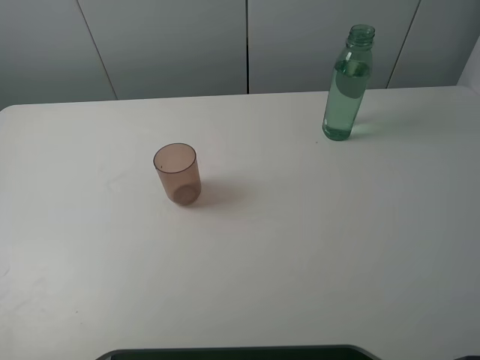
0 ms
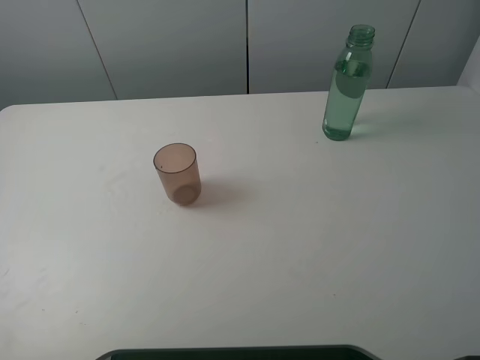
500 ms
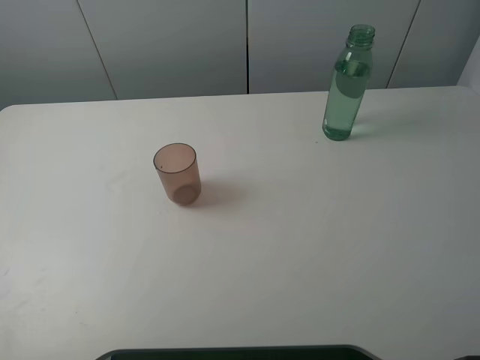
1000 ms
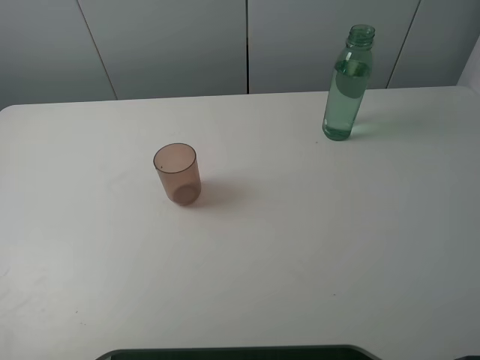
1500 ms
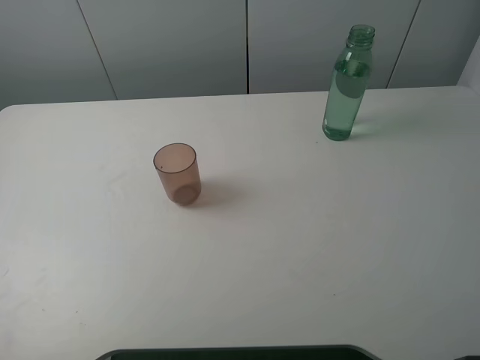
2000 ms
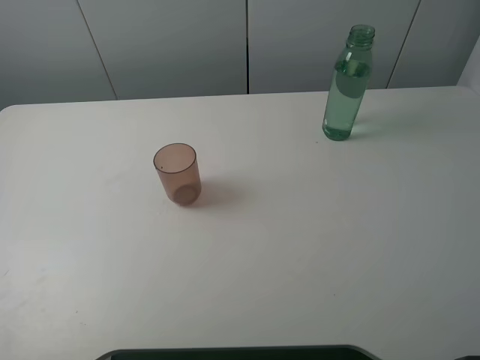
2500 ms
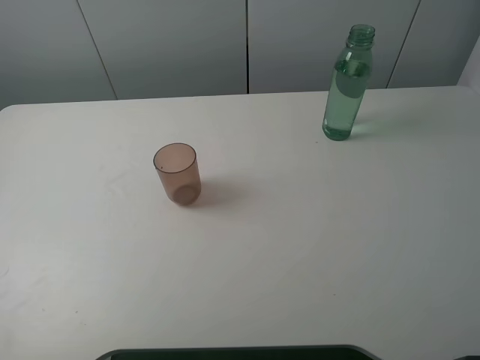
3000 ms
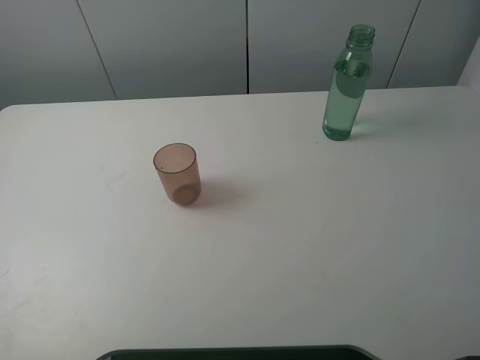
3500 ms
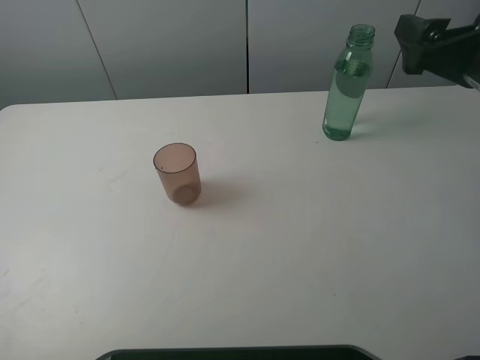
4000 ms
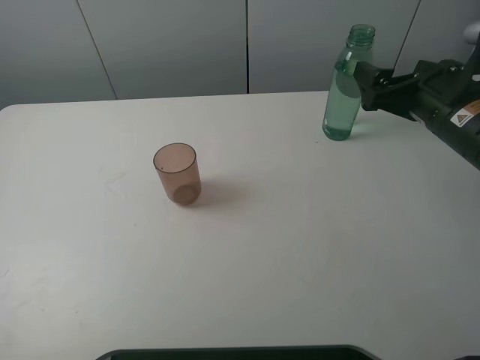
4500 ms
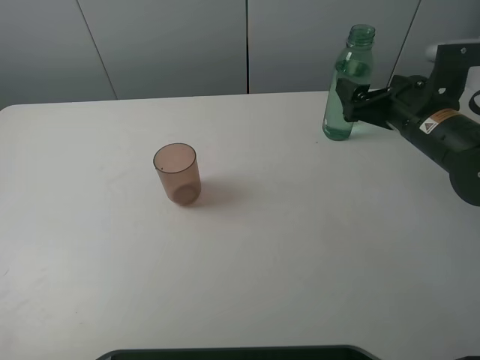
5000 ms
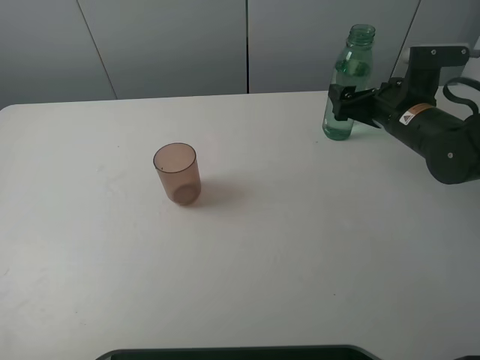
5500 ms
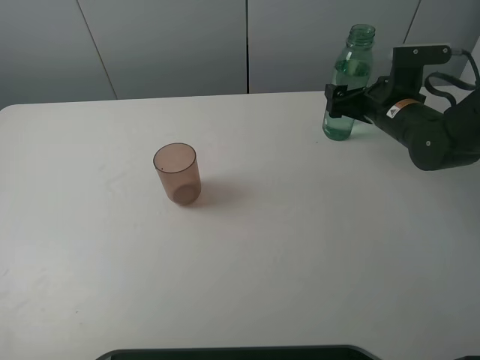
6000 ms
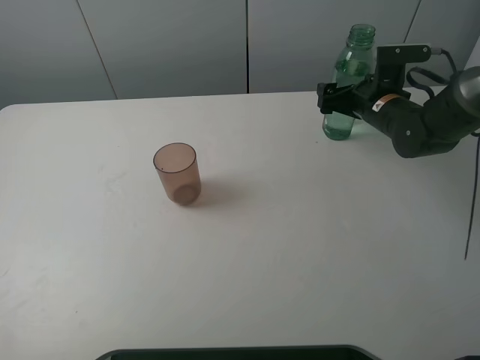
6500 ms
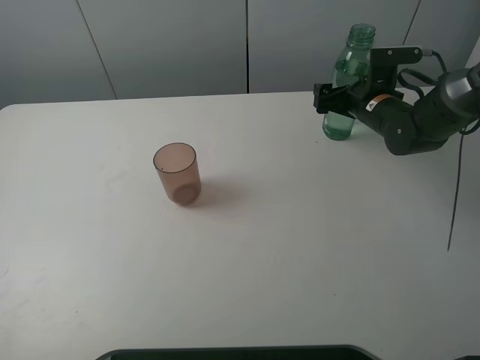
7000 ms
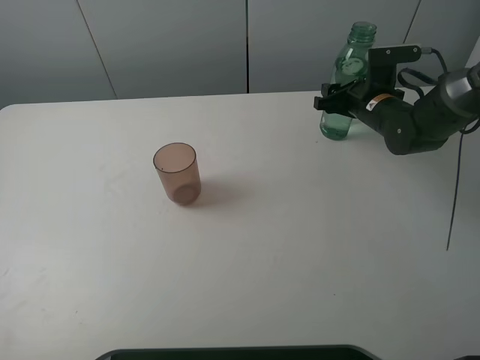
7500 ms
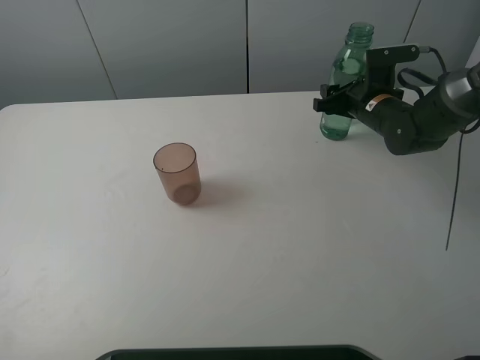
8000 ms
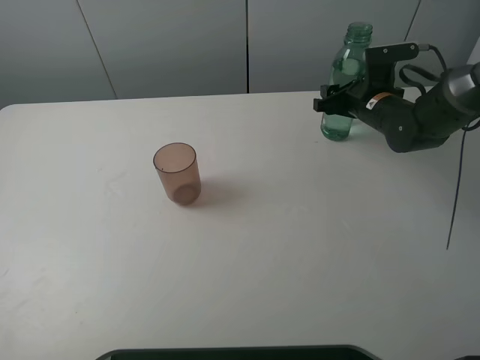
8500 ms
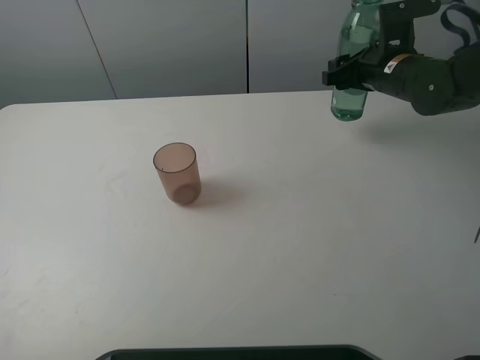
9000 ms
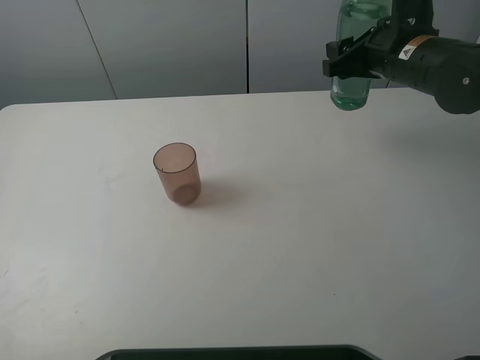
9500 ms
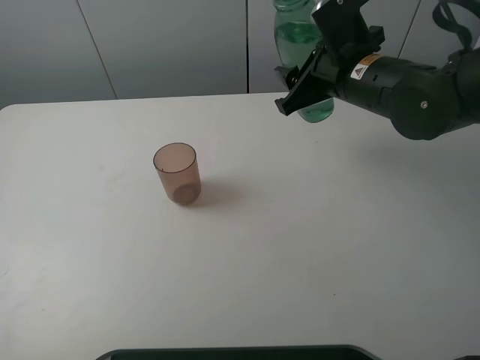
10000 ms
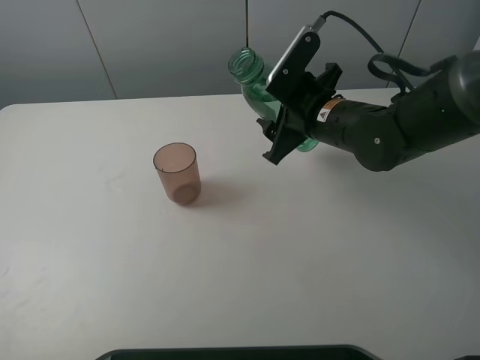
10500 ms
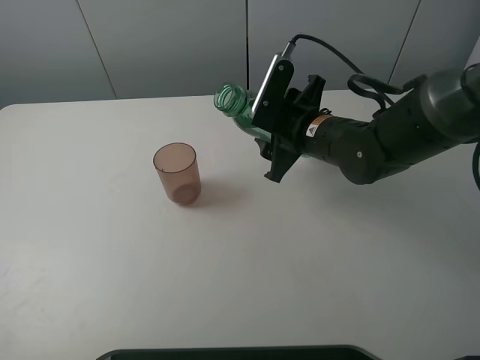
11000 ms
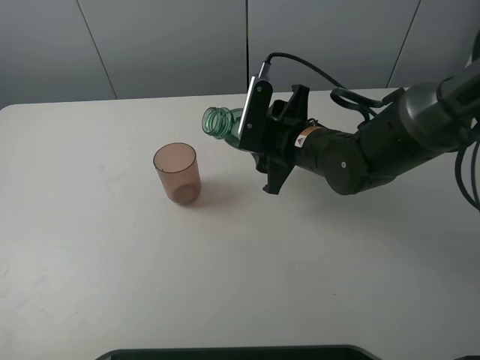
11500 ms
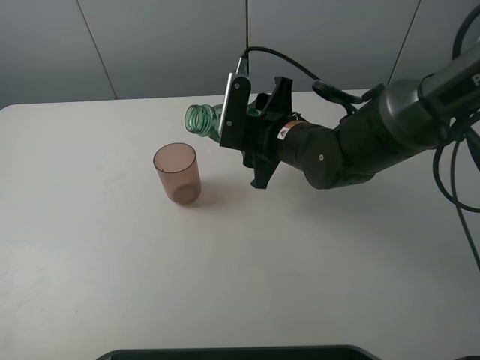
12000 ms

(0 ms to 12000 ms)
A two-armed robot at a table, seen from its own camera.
Task of the whole recording: pick up the bottle filled with water and pour it into the pink cup.
Step, 0 ms - 7500 ms: Grasp the green bottle with the right gripper.
0 ms - 2000 ms: Neither gripper changes place.
2000 ms - 4000 ms: The right gripper heads forward, covering some 25 cm.
4000 ms - 6000 ms: The right gripper heads downward and forward, covering some 15 cm.
6000 ms - 8000 ms: The right gripper moves roughly 5 cm, and closes.
8000 ms - 10000 ms: The right gripper travels upward, backward and to the left by roughly 15 cm.
10000 ms - 12000 ms: The right gripper goes about 10 cm downward and to the left.

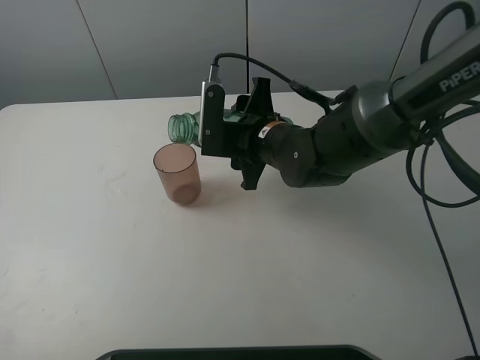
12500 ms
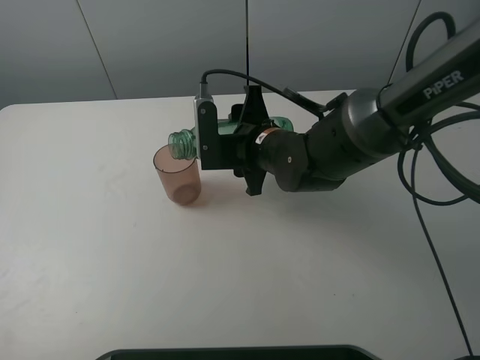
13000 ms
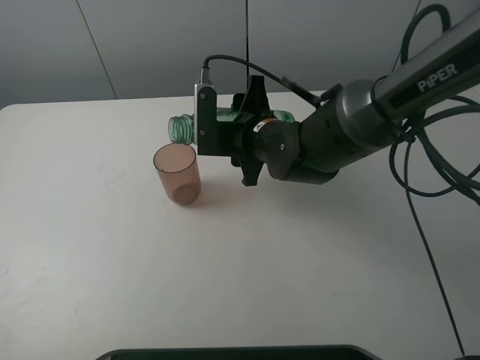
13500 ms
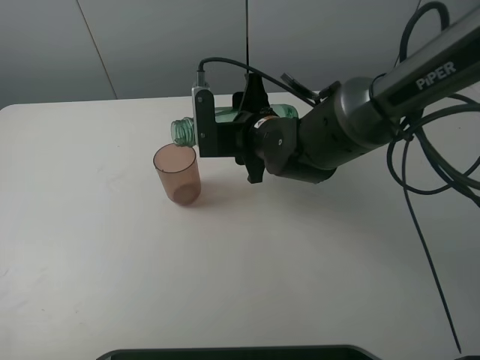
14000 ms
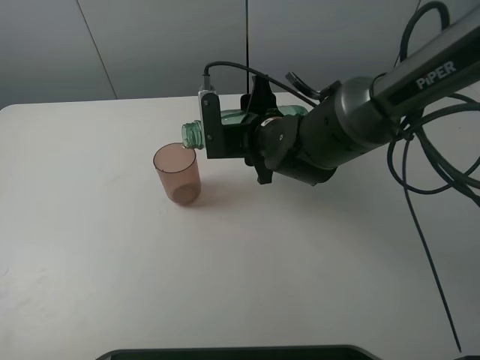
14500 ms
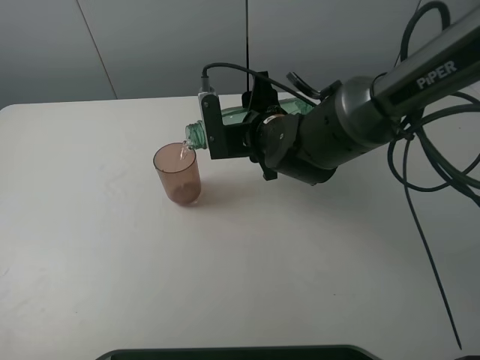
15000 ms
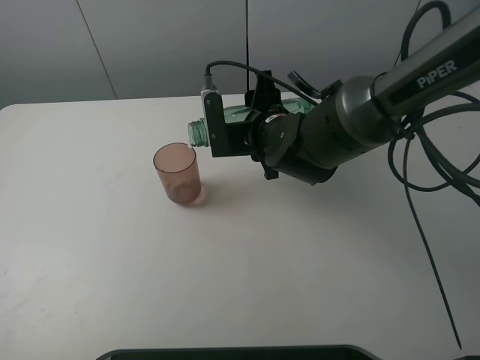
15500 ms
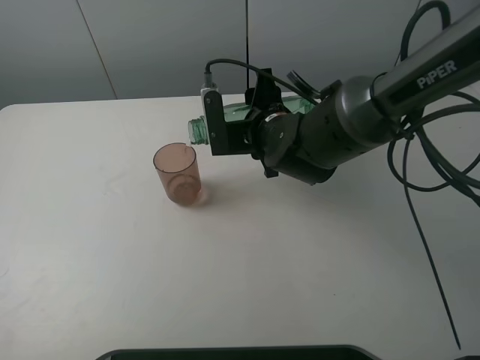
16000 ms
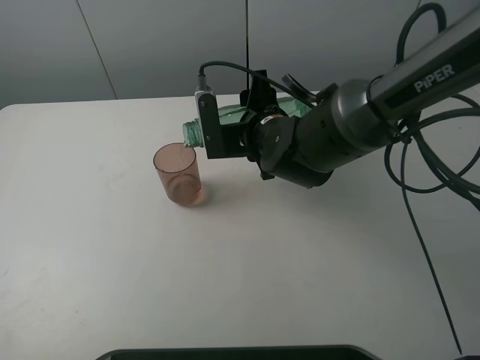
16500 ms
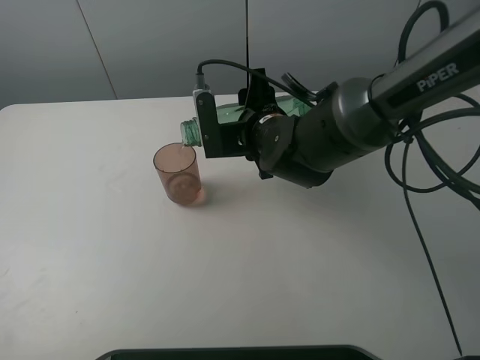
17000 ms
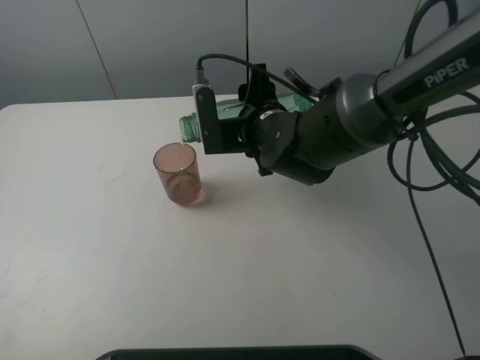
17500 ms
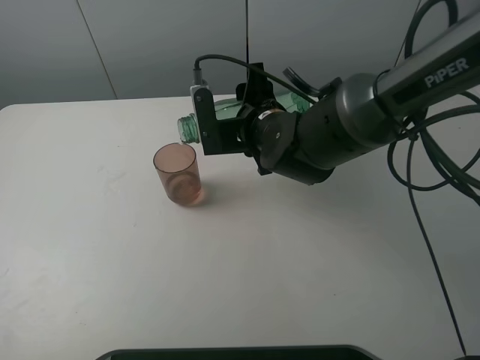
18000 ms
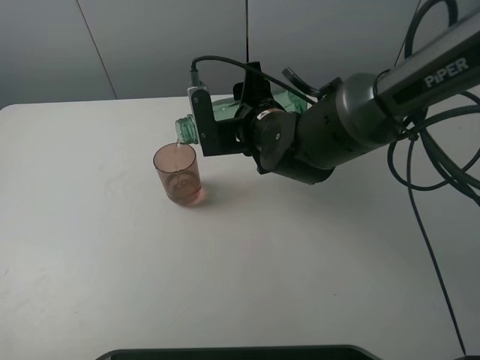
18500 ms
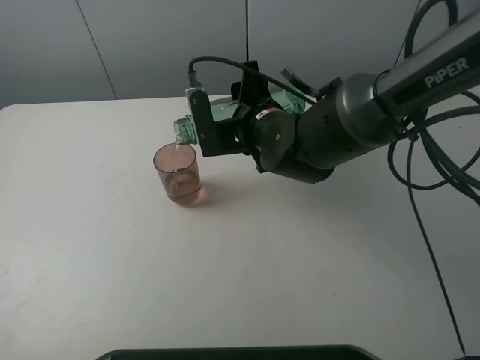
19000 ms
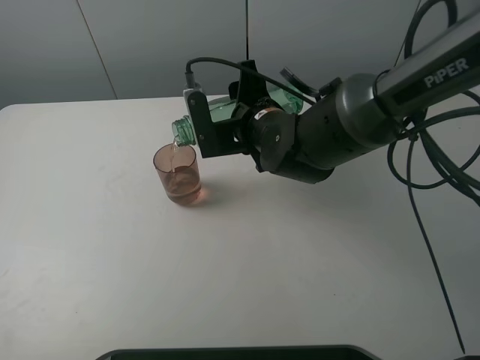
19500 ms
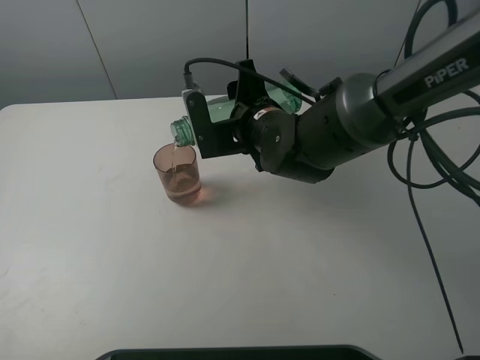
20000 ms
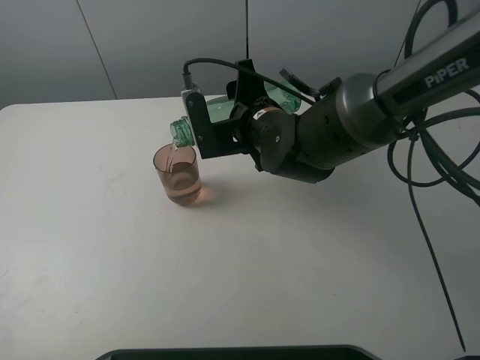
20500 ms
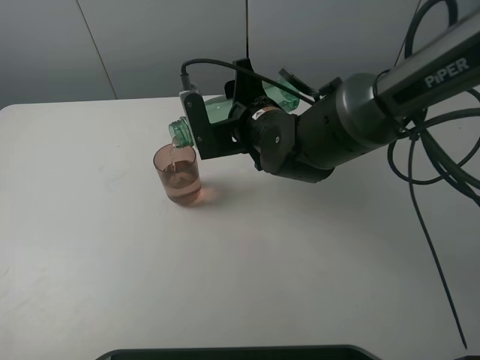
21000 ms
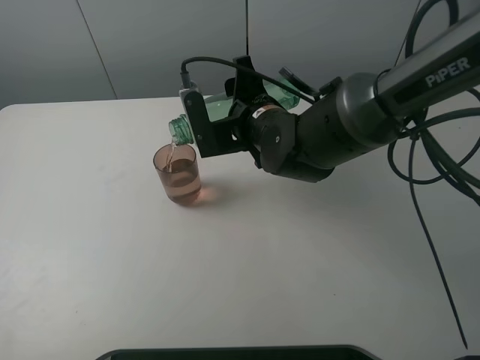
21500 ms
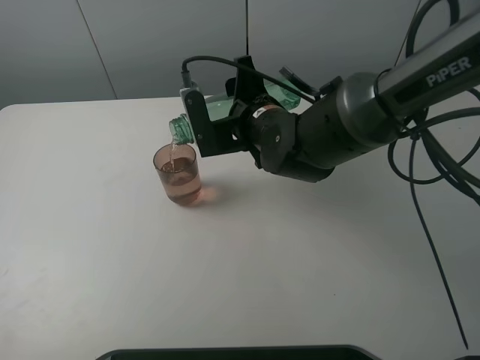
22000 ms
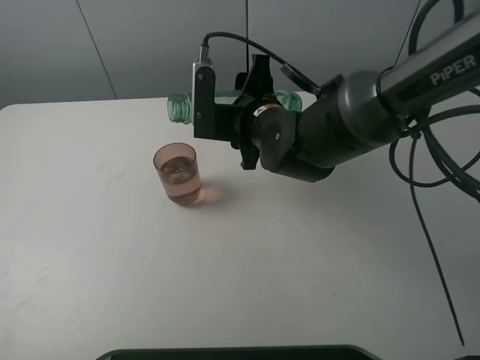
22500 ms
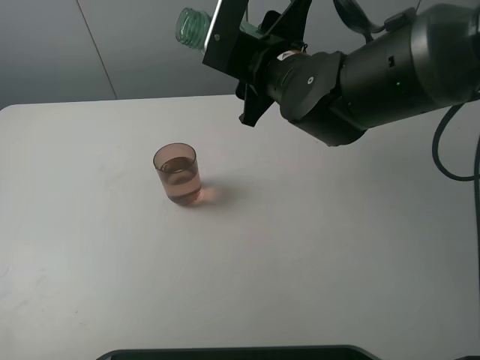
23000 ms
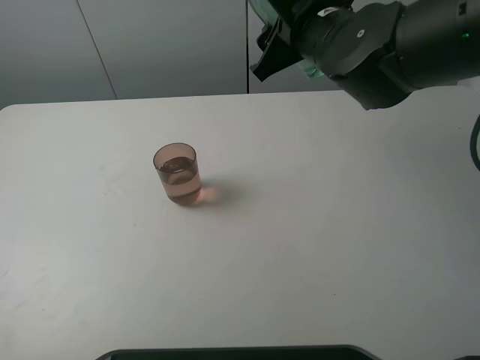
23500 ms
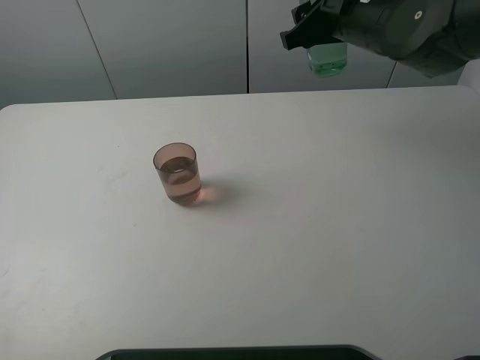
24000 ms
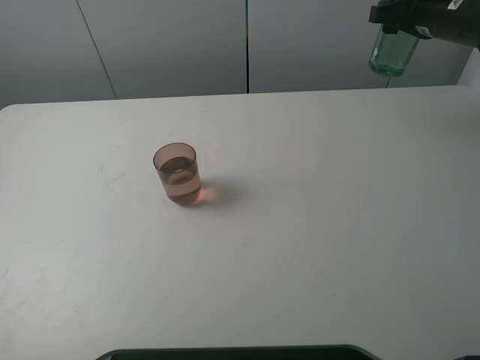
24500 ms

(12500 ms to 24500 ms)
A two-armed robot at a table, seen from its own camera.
Task of the whole recording: pick up the bottle filled with water and pour it into the pink cup.
Step, 12500 ms - 22500 ms: Pour water from green bottle to pink cup with the right gripper.
12500 ms - 14500 ms: The grippers move only a little.
14500 ms - 16500 ms: Both grippers stay put.
16500 ms - 18500 ms: Both grippers stay put.
18500 ms - 20500 ms: Neither gripper changes place.
20500 ms - 22500 ms: The grippers move only a little.
22500 ms - 24500 ms: The right gripper heads to the right, covering roughly 25 cm.

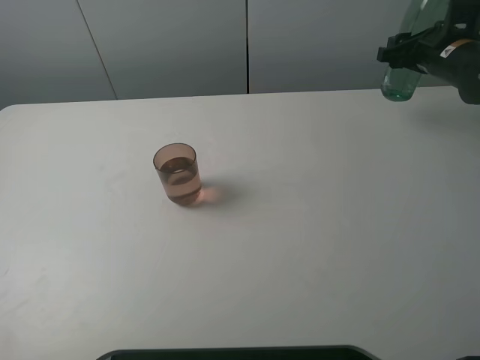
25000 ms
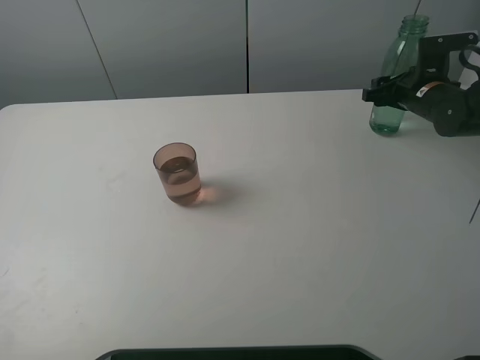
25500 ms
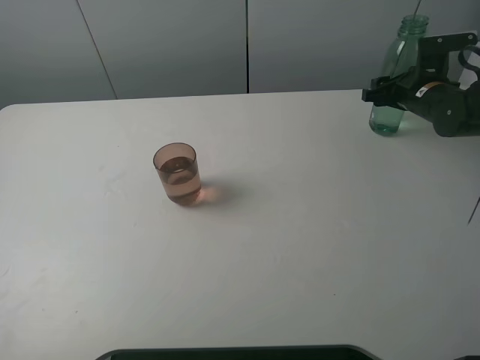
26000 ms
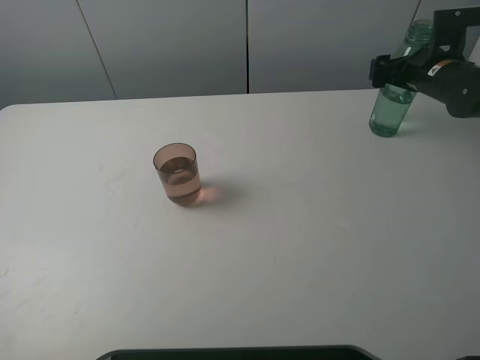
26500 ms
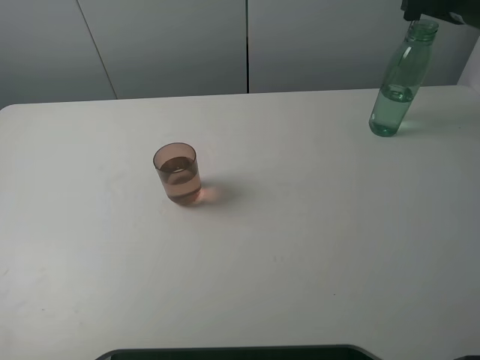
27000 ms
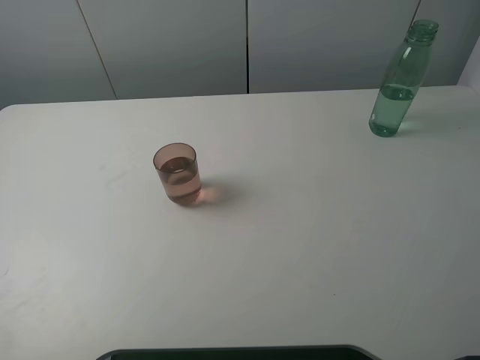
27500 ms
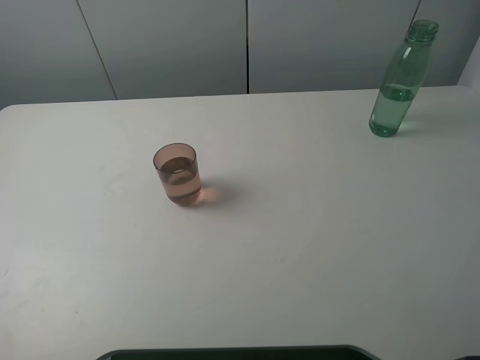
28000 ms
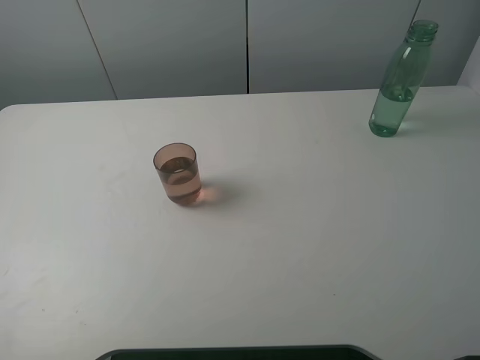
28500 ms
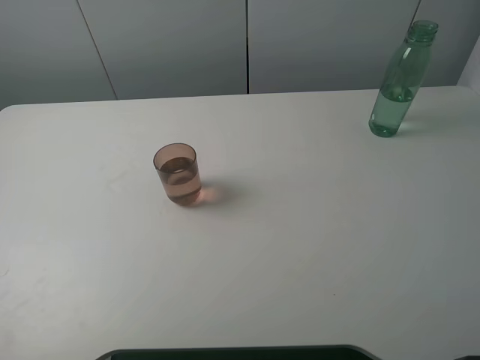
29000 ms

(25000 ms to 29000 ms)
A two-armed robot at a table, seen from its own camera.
Task of the whole recording: pick up the bottle filled with water and pour it into the pink cup.
25000 ms - 27000 ms: The right gripper moves upward, about 10 cm, and opens.
27000 ms - 29000 ms: The right gripper heads backward, covering some 35 cm.
